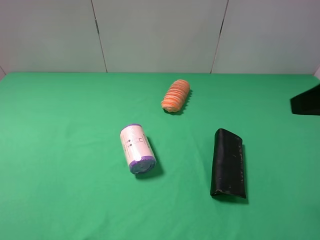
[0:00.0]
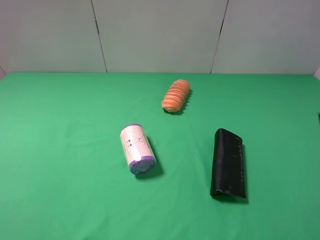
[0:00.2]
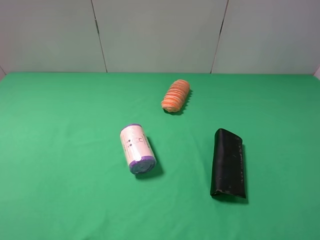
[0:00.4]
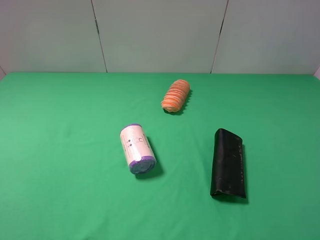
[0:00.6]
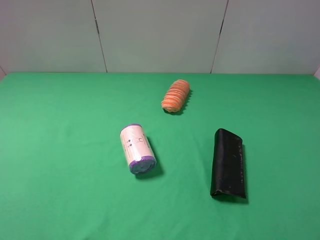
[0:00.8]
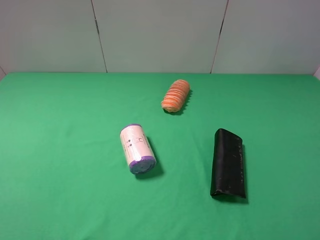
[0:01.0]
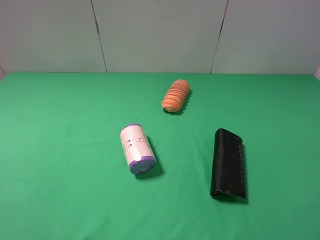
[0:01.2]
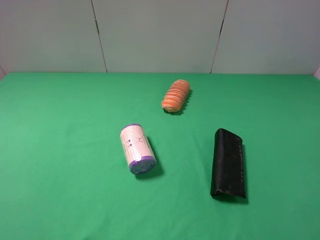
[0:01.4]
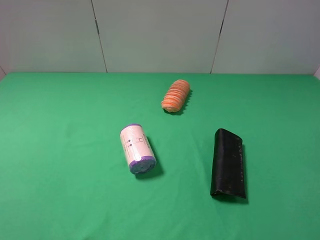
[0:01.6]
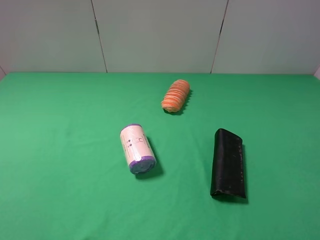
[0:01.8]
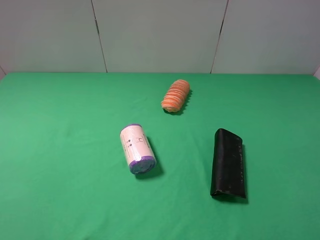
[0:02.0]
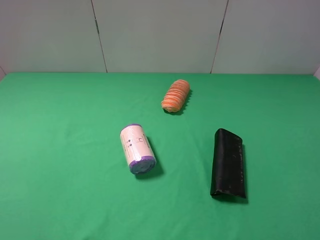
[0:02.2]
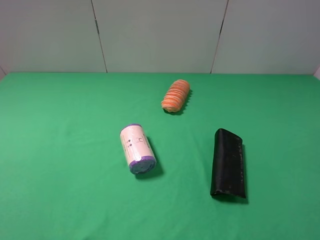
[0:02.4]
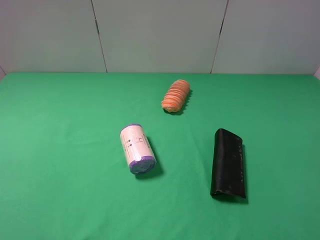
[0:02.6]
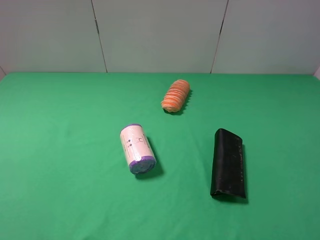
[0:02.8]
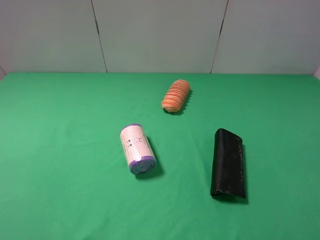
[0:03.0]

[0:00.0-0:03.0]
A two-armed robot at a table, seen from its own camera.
Task of the whole recording: use the left gripper to pick up the item and transfer it from the left gripper to the right gripper.
0.0 to 1.6 s: The right gripper heads backward, covering approximately 10 cm.

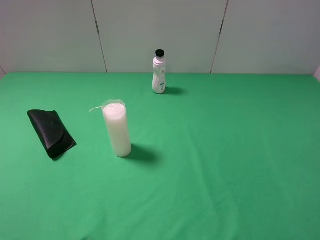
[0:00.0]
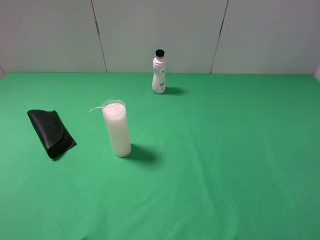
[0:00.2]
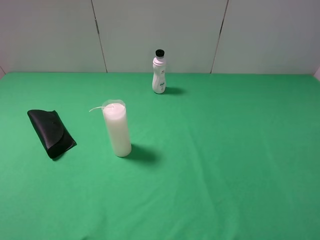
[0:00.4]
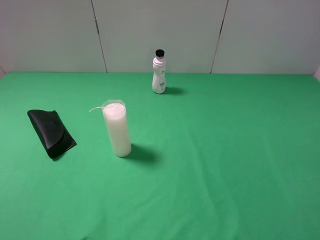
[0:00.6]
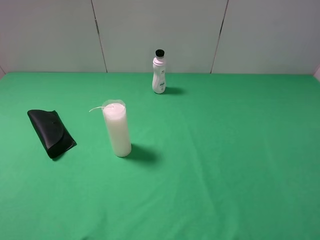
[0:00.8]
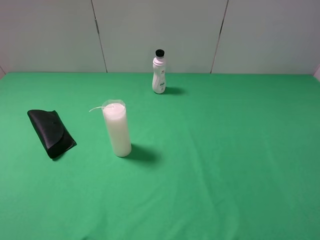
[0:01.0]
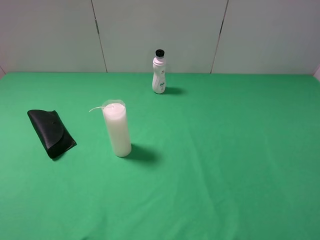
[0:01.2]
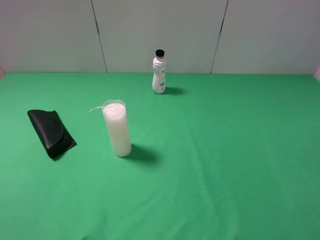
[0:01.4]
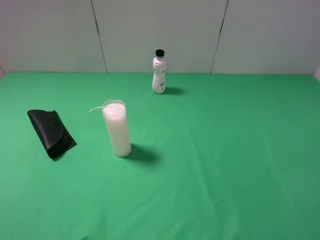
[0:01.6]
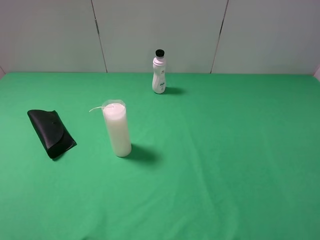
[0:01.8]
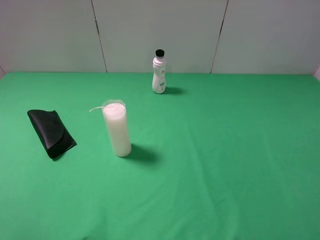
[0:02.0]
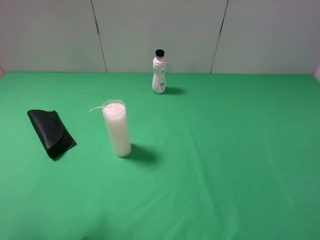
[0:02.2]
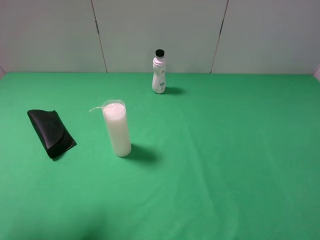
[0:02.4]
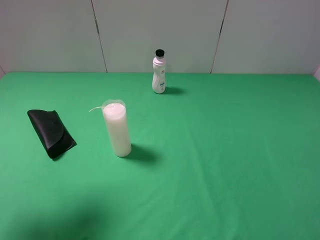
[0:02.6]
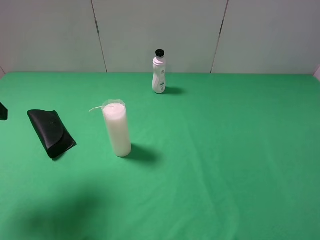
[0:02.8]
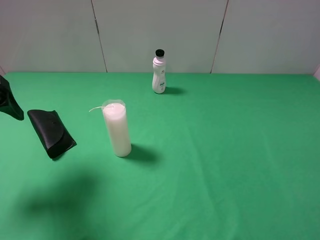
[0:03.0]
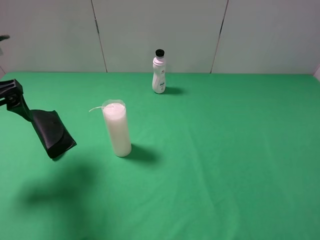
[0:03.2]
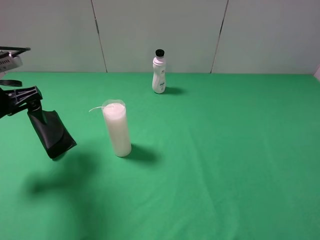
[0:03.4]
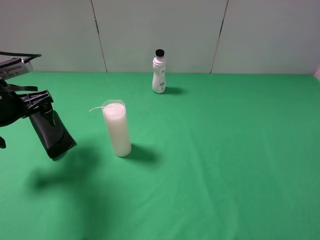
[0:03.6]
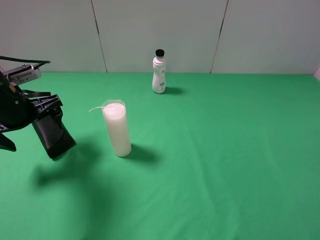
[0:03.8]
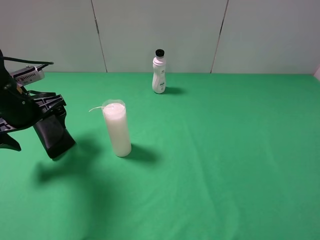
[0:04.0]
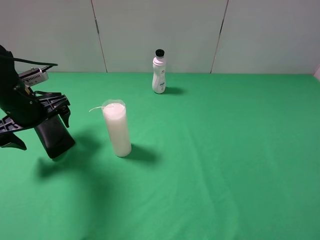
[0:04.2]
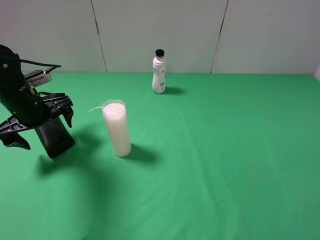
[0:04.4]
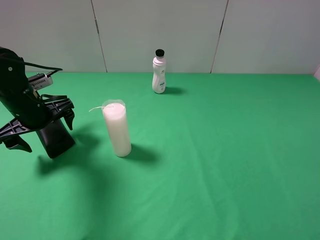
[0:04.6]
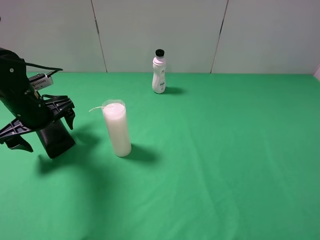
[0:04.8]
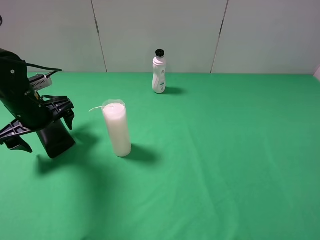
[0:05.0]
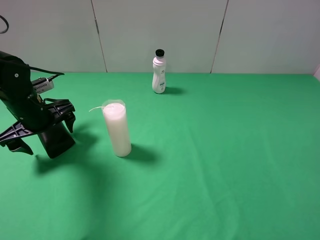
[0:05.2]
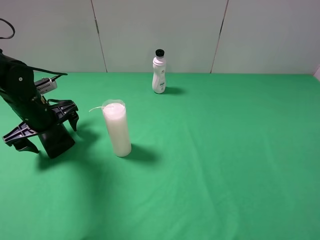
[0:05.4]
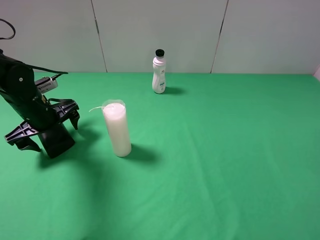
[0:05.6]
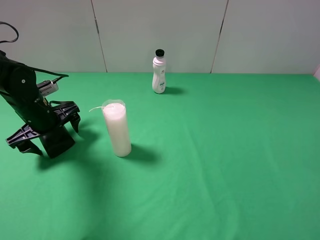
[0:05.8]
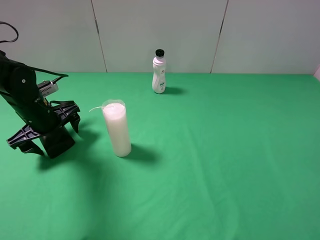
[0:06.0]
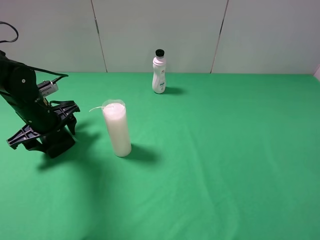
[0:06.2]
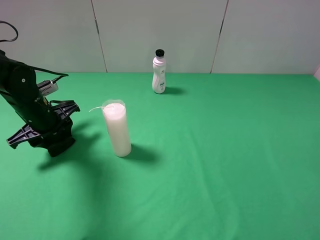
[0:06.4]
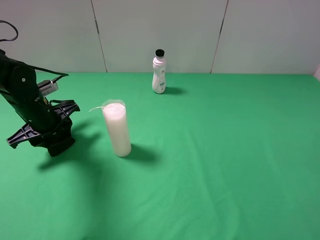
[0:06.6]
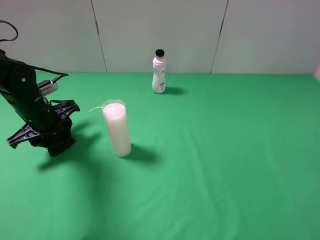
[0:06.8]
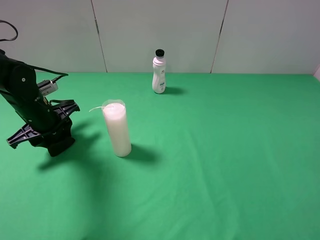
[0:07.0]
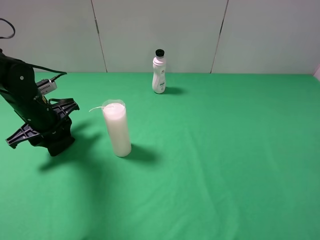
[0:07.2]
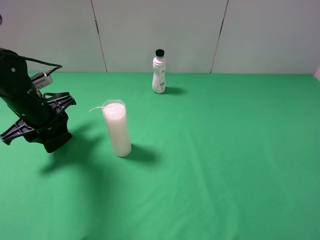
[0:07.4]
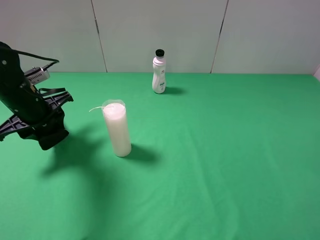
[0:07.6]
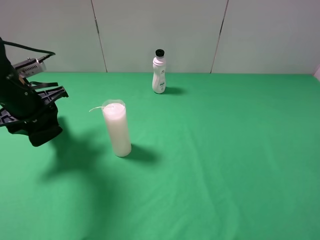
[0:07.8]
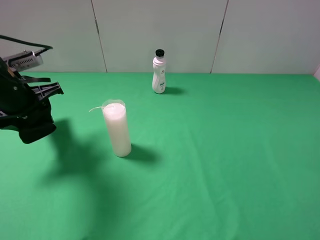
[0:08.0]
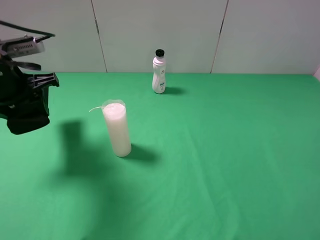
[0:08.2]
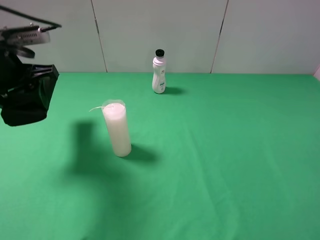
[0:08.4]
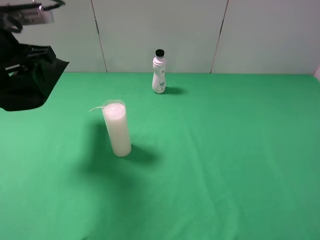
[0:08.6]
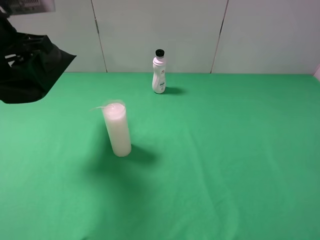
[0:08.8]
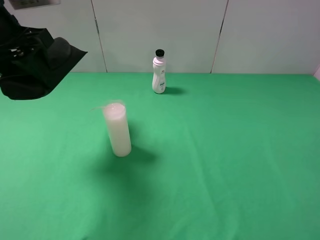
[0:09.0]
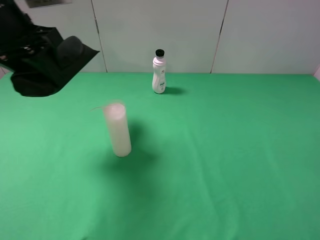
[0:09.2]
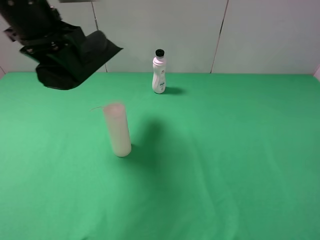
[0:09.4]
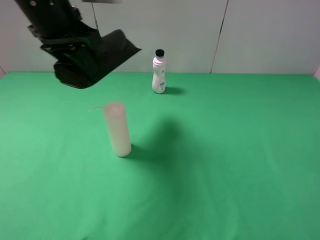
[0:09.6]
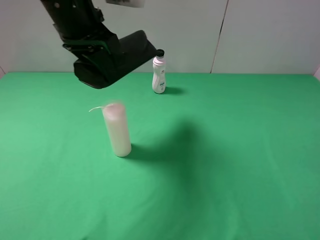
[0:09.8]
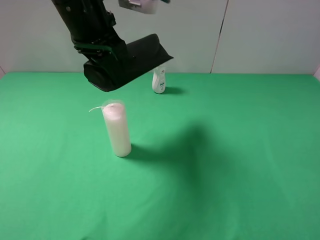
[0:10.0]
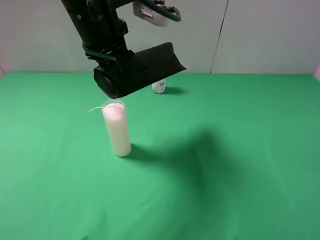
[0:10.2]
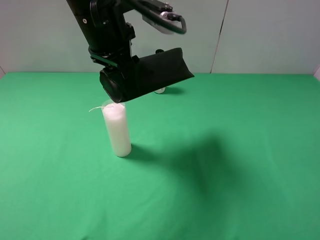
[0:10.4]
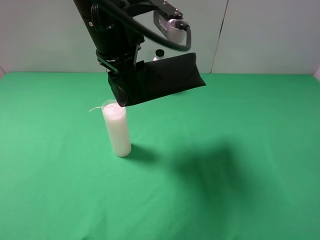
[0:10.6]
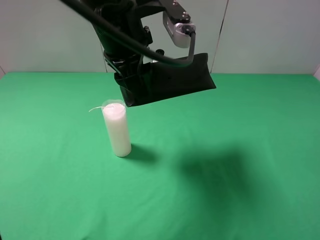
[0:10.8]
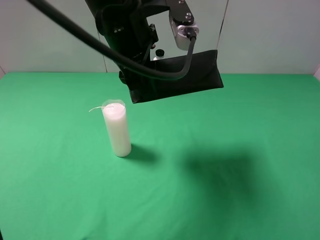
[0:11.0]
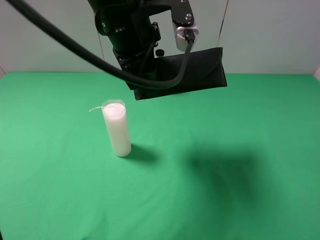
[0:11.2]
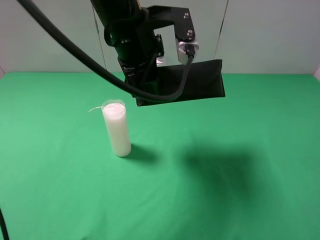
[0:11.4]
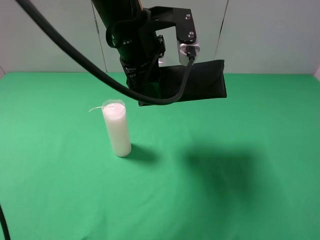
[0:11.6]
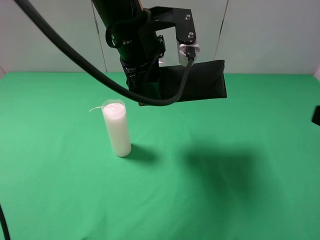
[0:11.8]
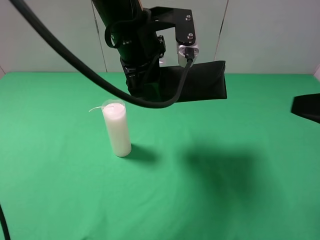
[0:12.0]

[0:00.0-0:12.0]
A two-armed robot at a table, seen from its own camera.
Task of the whole recording: use the left gripper to pick up the item and transfer it from the left gripper to the right gripper.
Step, 0.0 to 6.6 s: Use the left gripper to grab the eyeglass case on the left side of the table.
1.6 to 3.0 s: The left gripper is displaced forward by roughly 20 cm.
3.0 to 4.4 s: The left gripper goes some 15 cm downward, forward and to the right.
4.4 to 6.0 s: The grippers make only small movements.
6.0 to 7.6 s: The left gripper closes.
7.6 to 9.0 s: The left gripper heads upward, covering approximately 15 cm.
9.0 to 10.4 s: The left gripper moves to the right, roughly 15 cm.
10.4 to 12.0 s: The right gripper shifts roughly 10 cm forward.

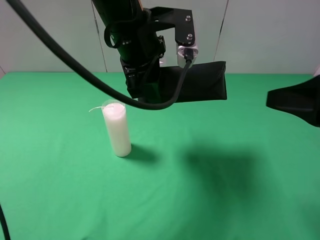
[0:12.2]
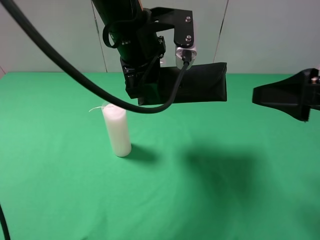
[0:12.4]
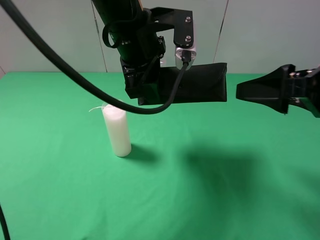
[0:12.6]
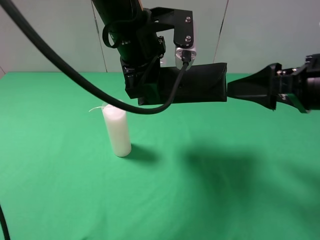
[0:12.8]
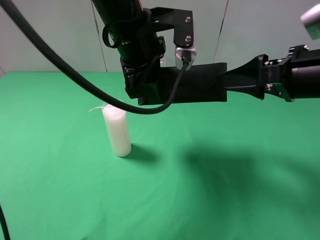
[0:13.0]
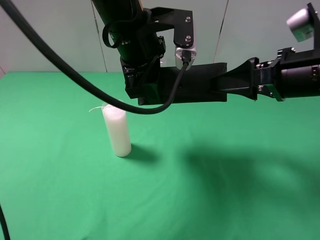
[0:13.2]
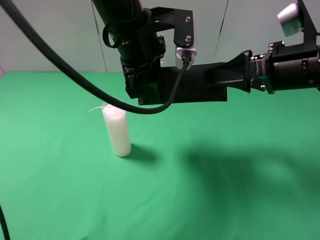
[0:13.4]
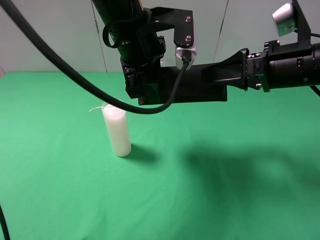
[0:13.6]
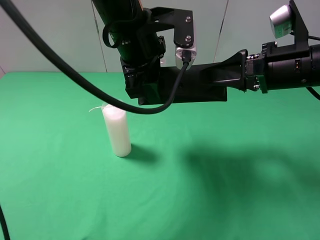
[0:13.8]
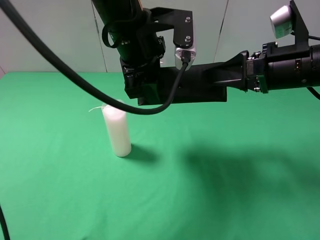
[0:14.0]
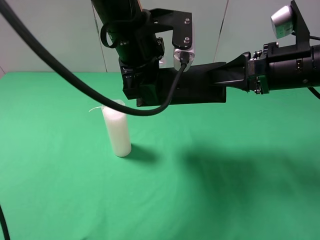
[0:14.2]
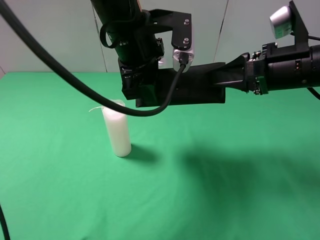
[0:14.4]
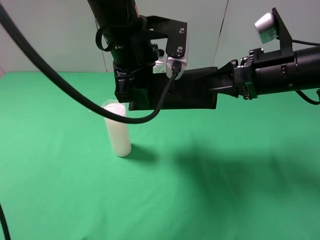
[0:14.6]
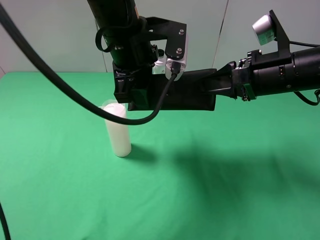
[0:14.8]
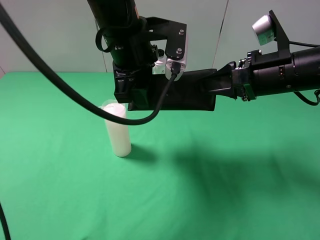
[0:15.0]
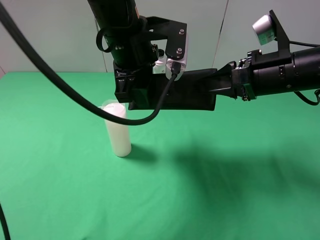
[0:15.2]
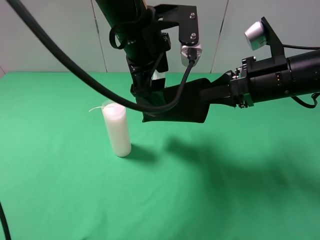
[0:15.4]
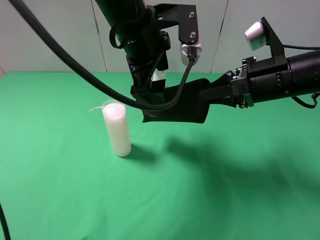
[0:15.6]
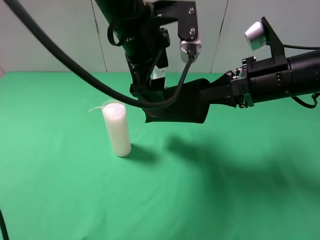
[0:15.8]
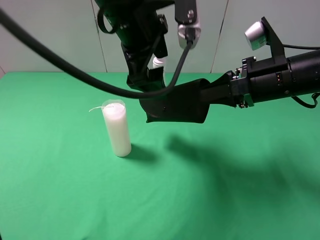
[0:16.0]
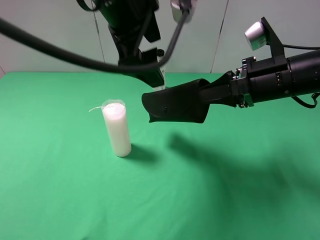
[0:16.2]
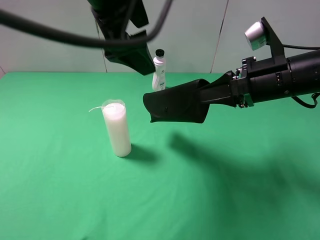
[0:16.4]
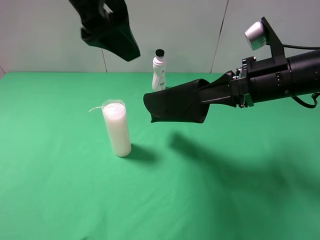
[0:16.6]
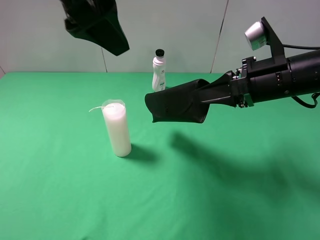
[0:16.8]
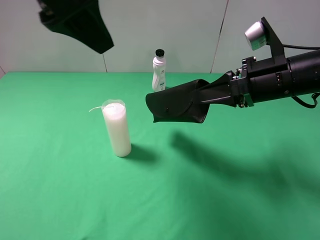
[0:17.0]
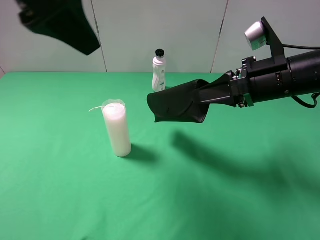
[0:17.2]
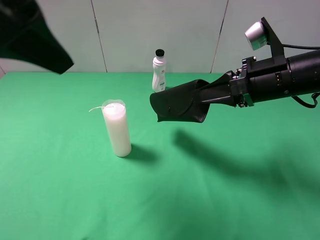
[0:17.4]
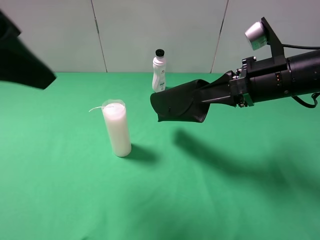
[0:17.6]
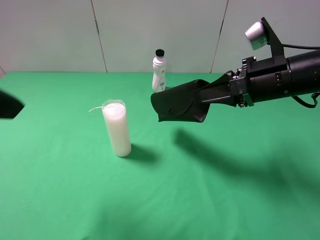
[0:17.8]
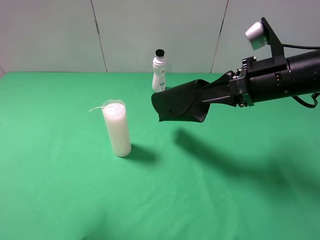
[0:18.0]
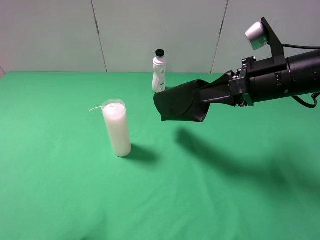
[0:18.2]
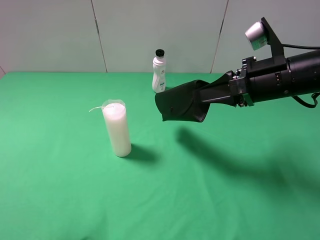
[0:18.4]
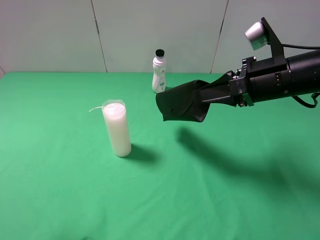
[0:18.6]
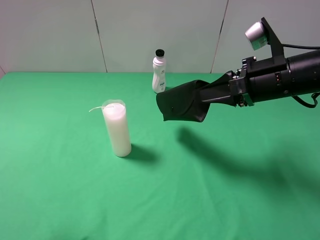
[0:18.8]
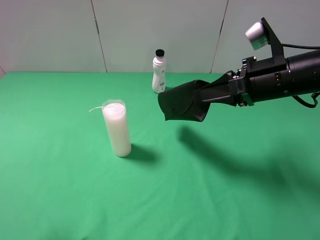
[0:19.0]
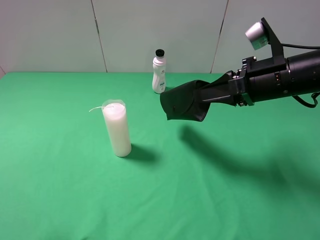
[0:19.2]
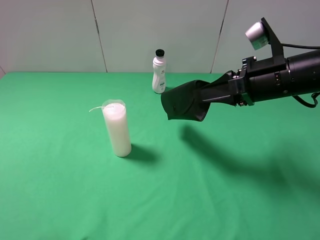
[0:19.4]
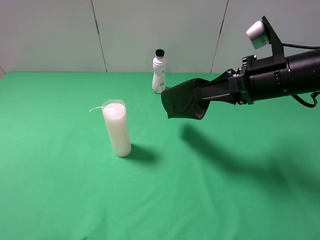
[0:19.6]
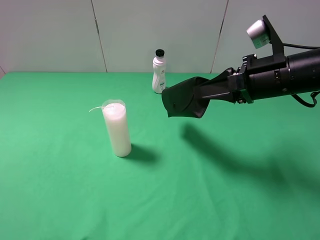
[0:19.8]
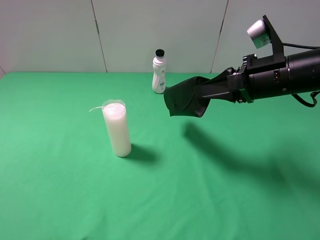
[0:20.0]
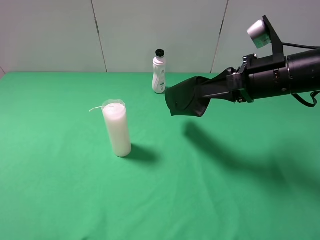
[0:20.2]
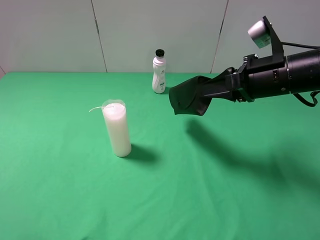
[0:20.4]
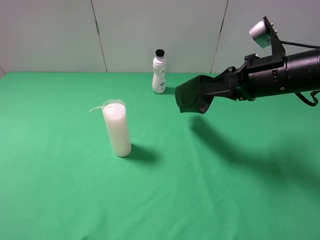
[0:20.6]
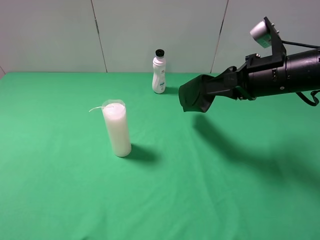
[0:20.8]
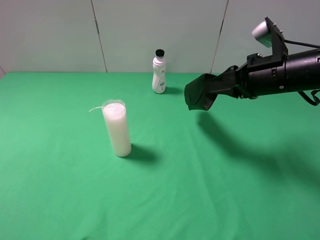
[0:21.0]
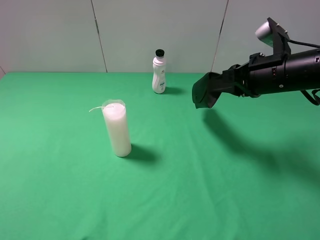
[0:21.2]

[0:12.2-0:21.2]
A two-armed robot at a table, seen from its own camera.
Task of the whole recording: use the left gripper to pick up the item and transfer it from the left gripper to the right gripper.
Step, 12.2 to 16.0 s: Pass the eyeglass case to the right gripper.
12.2 to 13.8 s: The right gripper goes some 10 cm forward.
13.8 to 15.2 s: The right gripper closes.
15.2 to 16.6 s: The left gripper heads upward and to the left, covering about 15 cm, and opens up.
16.6 to 18.2 s: The left gripper shifts some 25 cm backward and to the left.
18.2 to 19.8 s: The left gripper travels downward by about 5 cm.
